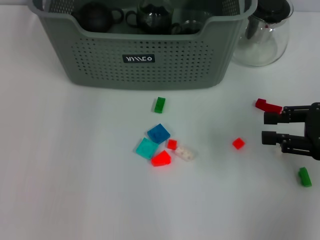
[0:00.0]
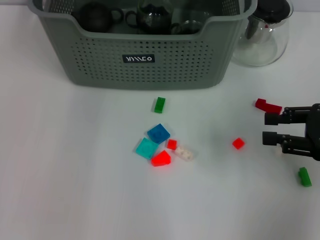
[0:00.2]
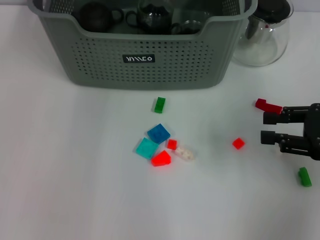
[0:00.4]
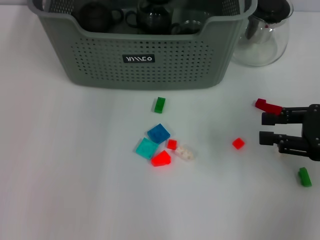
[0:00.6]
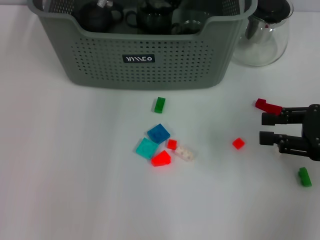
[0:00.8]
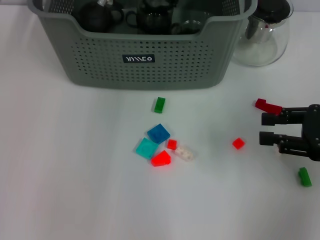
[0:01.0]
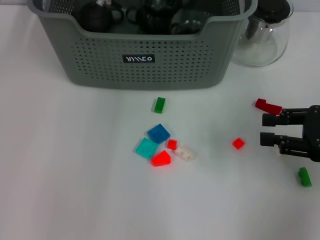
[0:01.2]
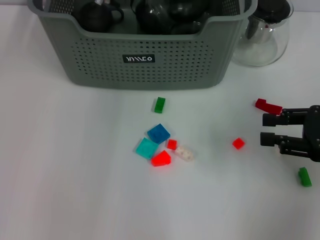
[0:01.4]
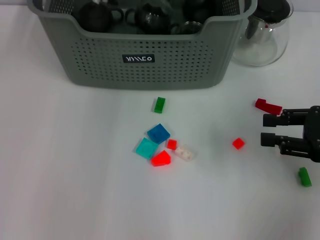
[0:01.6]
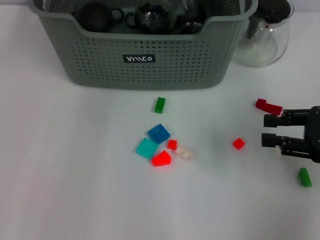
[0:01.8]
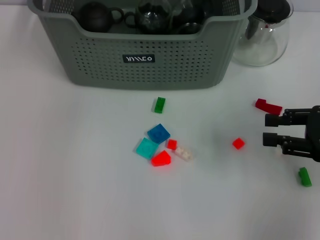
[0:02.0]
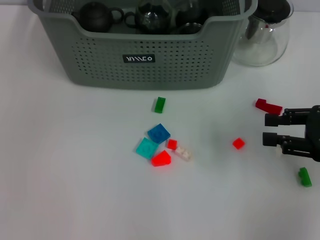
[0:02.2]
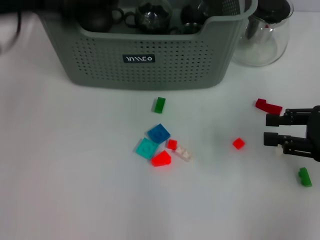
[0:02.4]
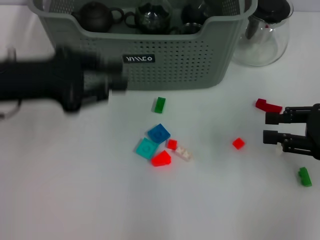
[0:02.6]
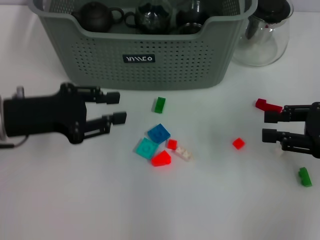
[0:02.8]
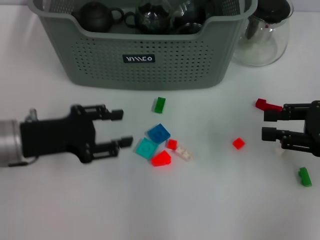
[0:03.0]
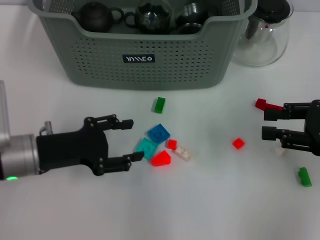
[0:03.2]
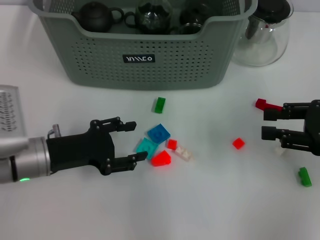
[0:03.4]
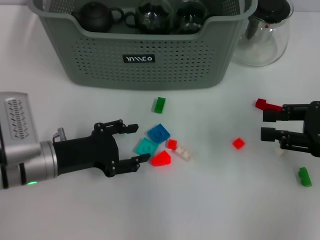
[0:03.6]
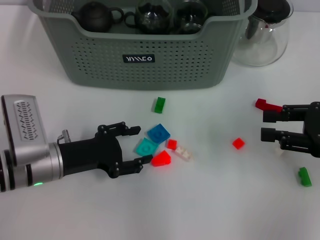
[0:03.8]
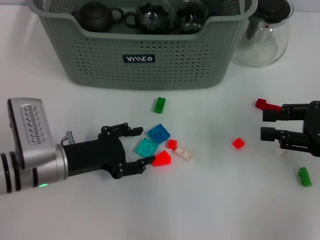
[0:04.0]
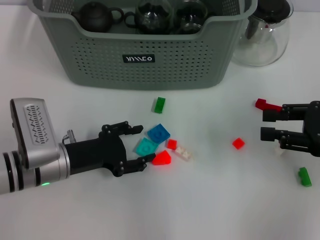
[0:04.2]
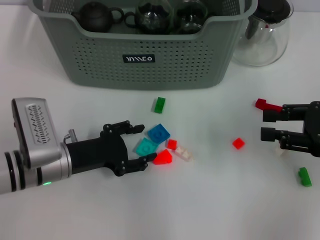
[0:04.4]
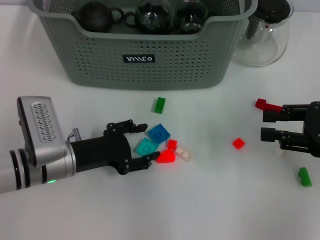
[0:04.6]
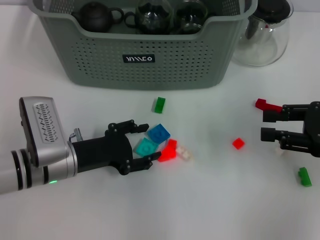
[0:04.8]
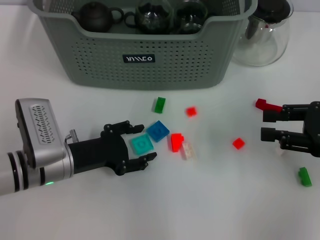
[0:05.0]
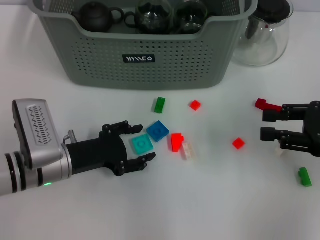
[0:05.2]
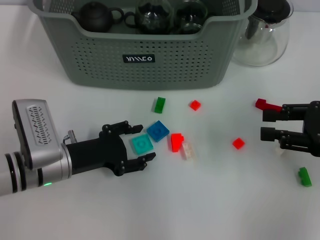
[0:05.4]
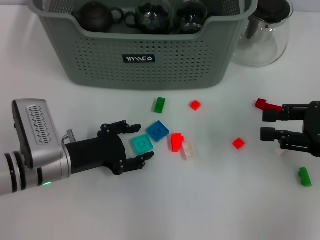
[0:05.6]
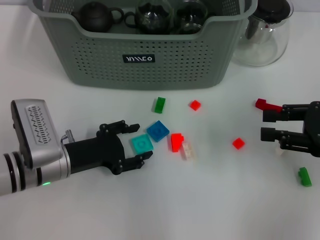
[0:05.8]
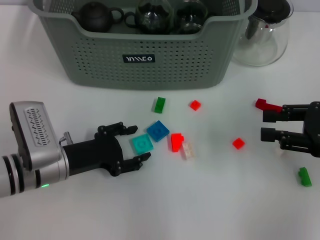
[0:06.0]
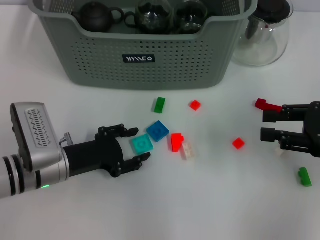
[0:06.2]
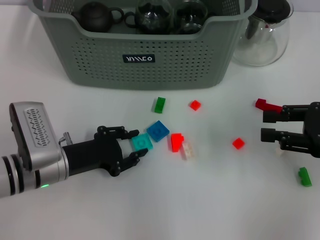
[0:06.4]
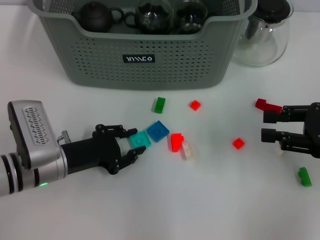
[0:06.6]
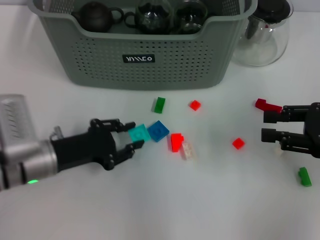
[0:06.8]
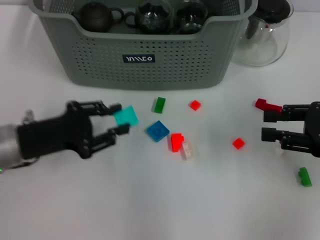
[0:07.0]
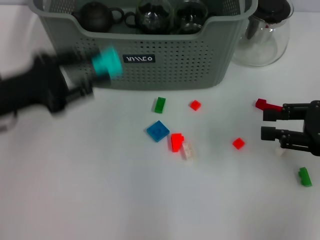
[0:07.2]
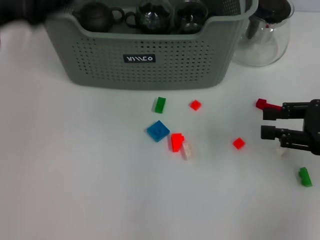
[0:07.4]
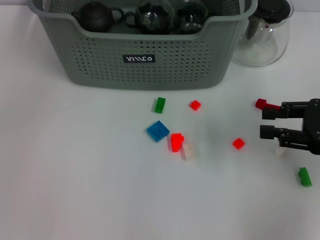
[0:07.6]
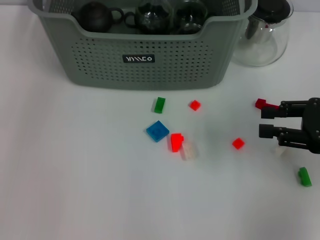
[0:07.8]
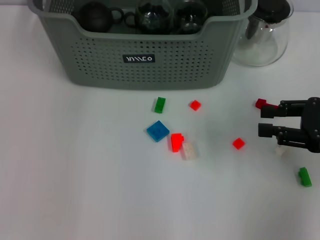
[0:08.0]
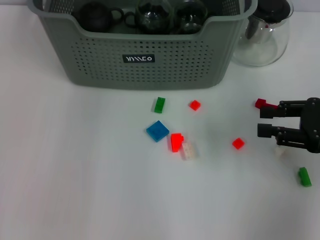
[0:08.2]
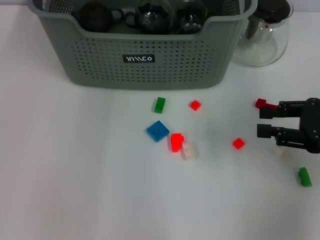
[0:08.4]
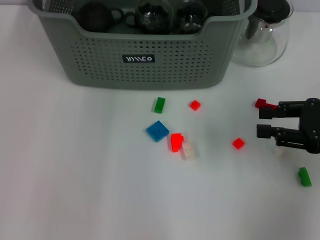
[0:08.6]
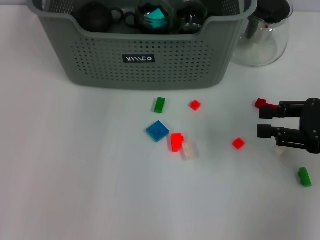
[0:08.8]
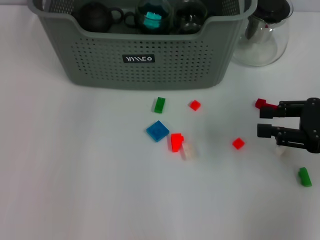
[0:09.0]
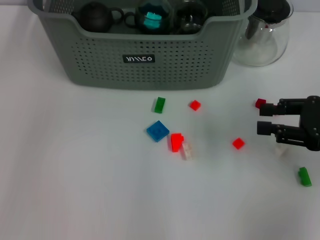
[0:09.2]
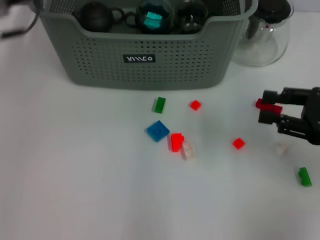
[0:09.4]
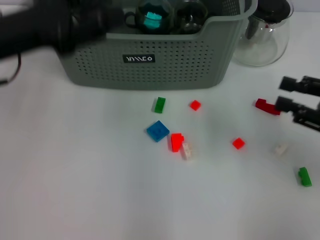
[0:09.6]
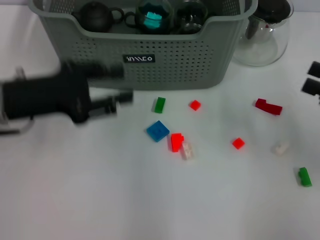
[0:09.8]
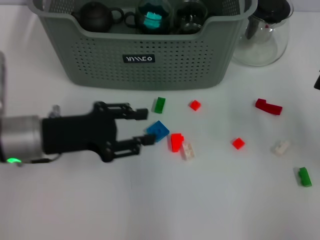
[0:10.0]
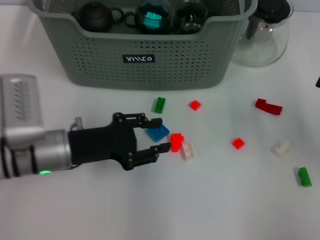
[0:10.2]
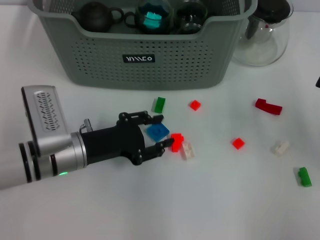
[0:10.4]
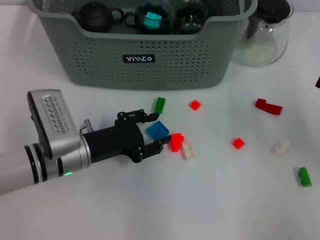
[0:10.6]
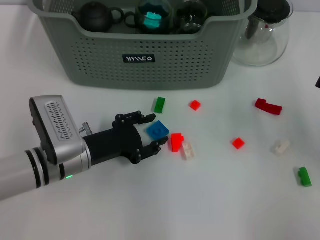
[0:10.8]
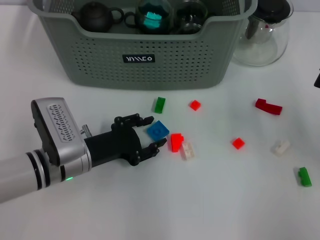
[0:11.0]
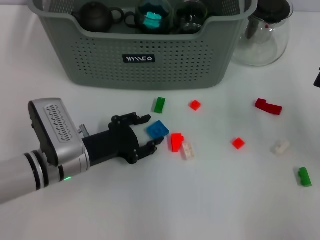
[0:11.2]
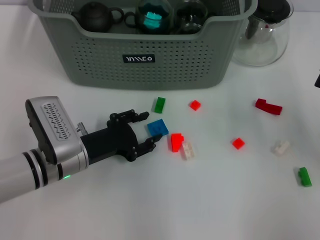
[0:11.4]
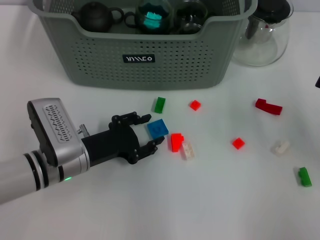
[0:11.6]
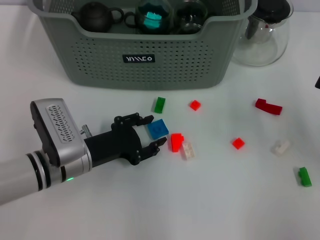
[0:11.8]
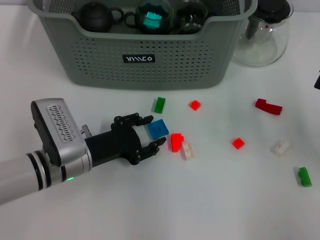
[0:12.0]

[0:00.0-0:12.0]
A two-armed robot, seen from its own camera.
Task of the whole recording: pick up the teacup on the table and place it into the storage bin, pick up the block on the table and place it into the storage bin.
Step, 0:01.6 to 0:06.4: Grasp the light blue block with left gripper.
Step, 0:06.6 to 0:08.8: Place the light blue block in the storage box with left gripper.
0:01.6 to 0:03.0: The left gripper heads backward, to the left and downward, covering approximately 30 cm.
0:03.0 to 0:04.4: The left gripper is displaced downward by about 5 cm, and opens up.
0:04.4 to 0:06.0: Both grippers stay about where they are.
0:06.0 to 0:07.6: The left gripper heads upward and forward, covering some 30 cm.
0:09.0 to 0:10.4: The left gripper goes approximately 30 cm downward and backward. Meanwhile the right gripper is displaced to the right by roughly 5 cm.
0:10.4 to 0:12.0: There are only small adjustments of the grippers.

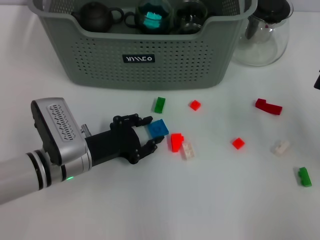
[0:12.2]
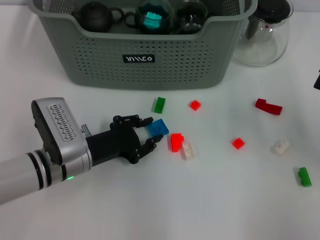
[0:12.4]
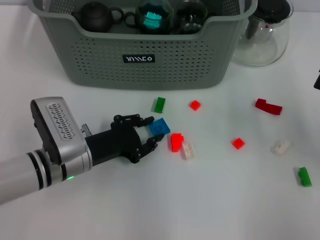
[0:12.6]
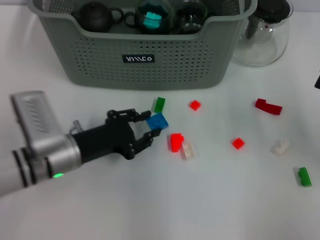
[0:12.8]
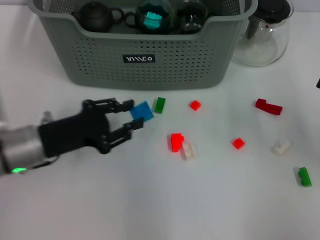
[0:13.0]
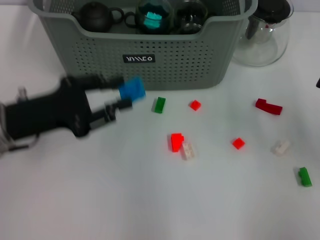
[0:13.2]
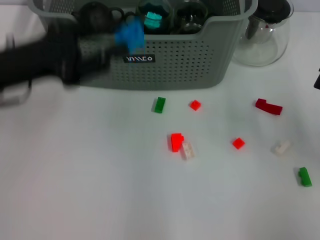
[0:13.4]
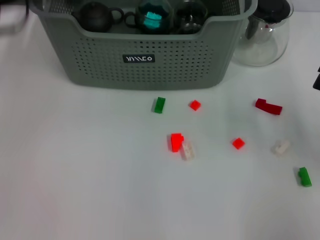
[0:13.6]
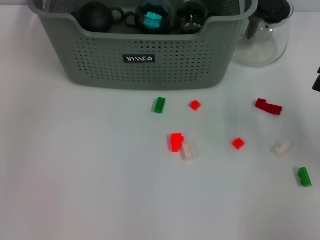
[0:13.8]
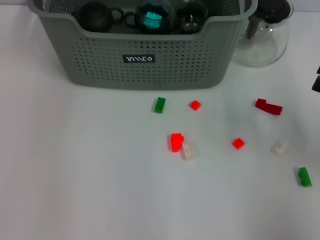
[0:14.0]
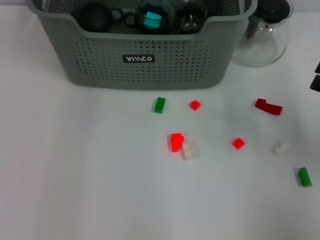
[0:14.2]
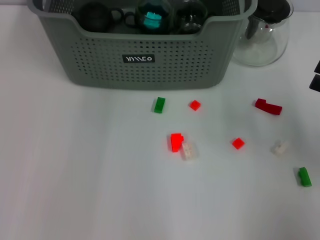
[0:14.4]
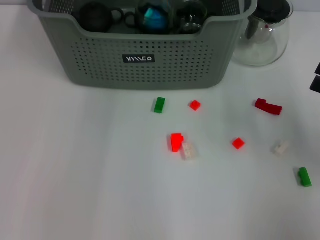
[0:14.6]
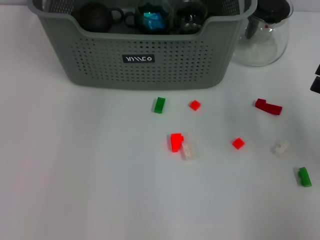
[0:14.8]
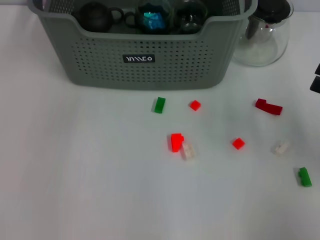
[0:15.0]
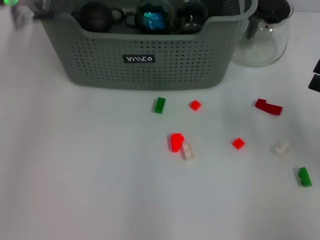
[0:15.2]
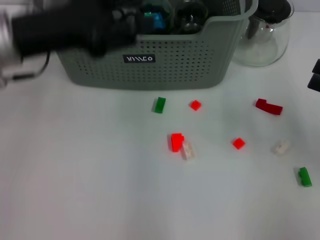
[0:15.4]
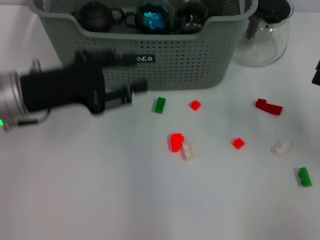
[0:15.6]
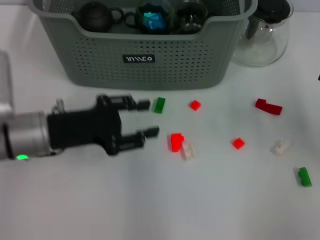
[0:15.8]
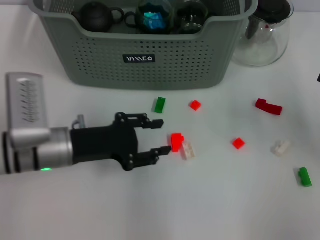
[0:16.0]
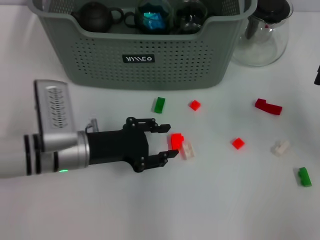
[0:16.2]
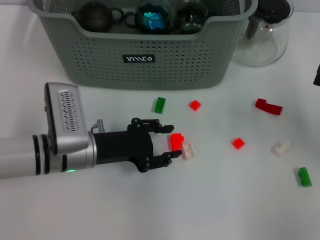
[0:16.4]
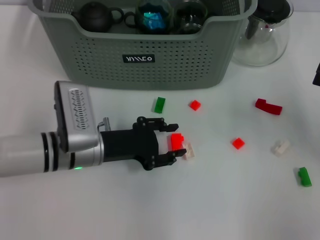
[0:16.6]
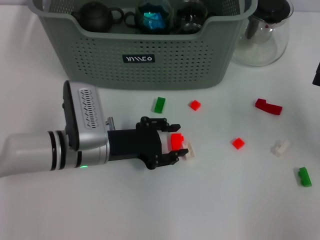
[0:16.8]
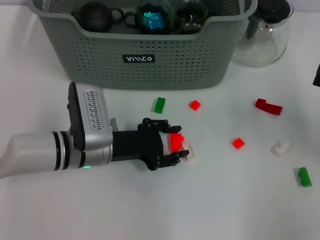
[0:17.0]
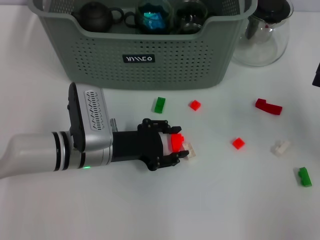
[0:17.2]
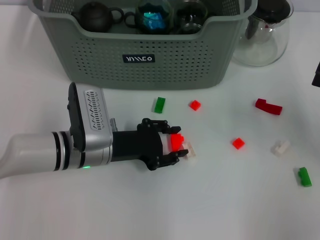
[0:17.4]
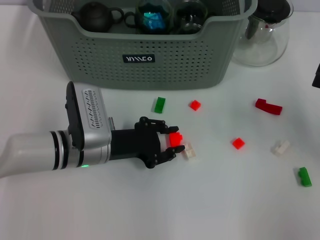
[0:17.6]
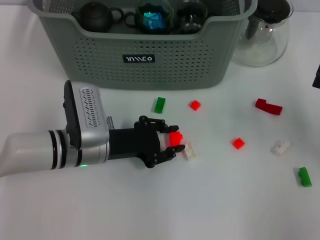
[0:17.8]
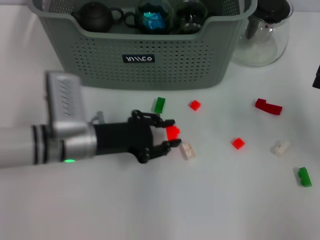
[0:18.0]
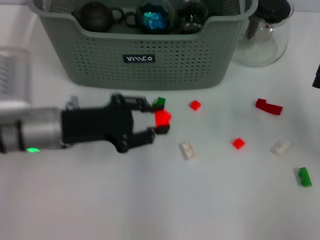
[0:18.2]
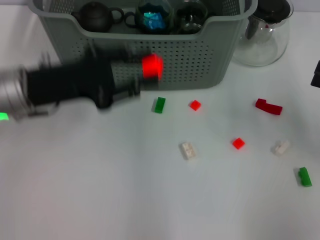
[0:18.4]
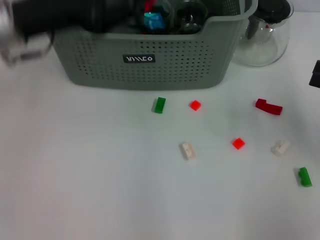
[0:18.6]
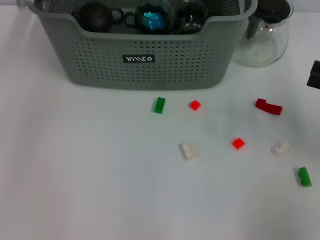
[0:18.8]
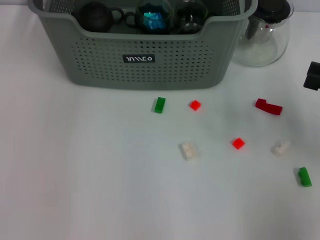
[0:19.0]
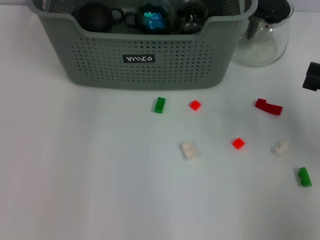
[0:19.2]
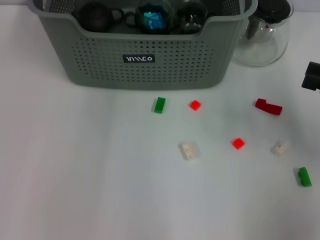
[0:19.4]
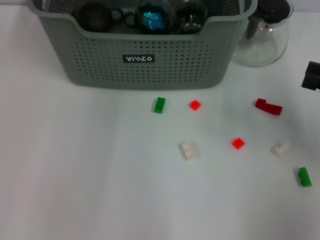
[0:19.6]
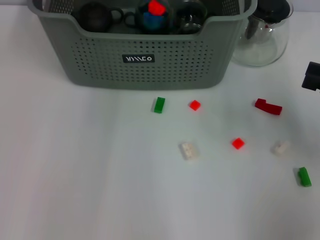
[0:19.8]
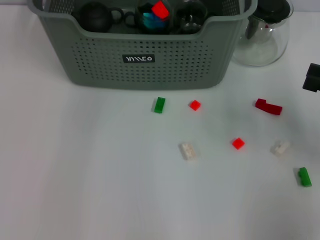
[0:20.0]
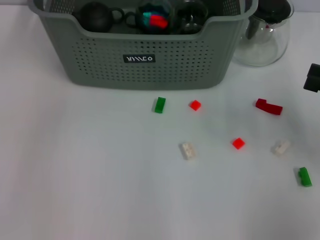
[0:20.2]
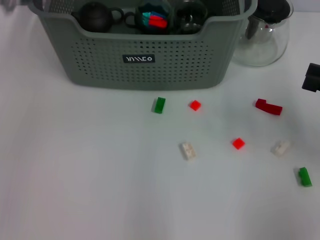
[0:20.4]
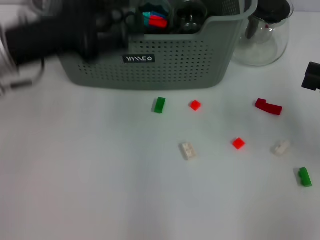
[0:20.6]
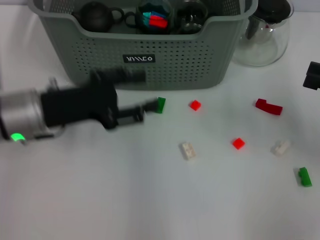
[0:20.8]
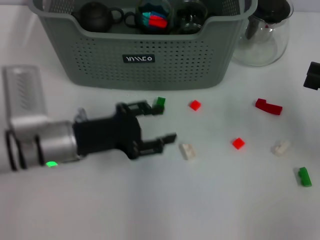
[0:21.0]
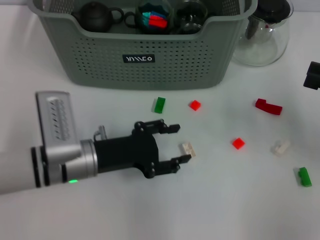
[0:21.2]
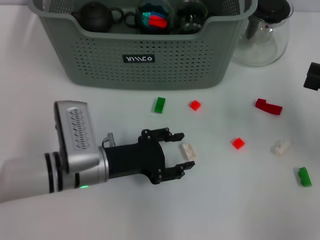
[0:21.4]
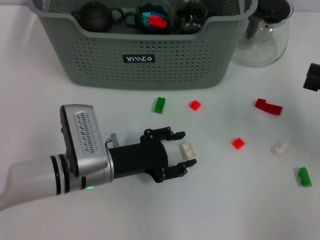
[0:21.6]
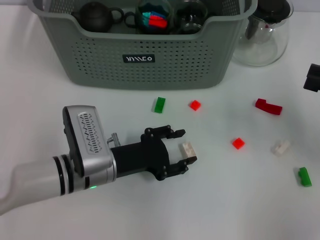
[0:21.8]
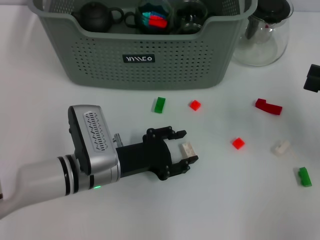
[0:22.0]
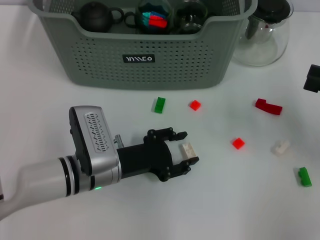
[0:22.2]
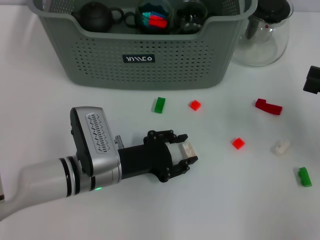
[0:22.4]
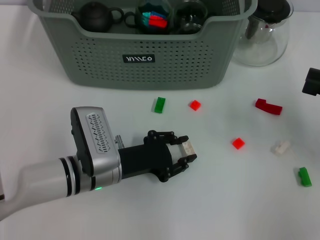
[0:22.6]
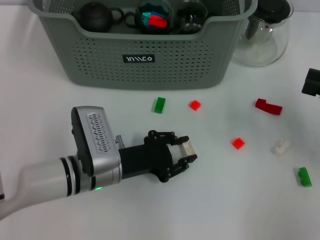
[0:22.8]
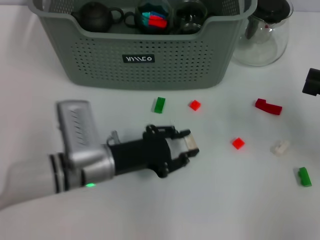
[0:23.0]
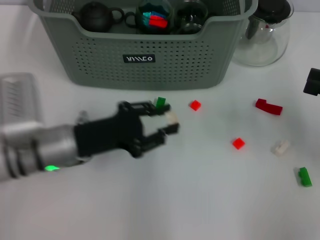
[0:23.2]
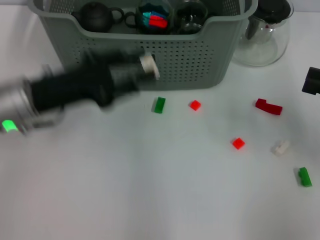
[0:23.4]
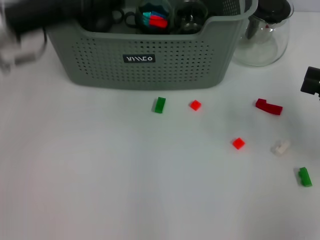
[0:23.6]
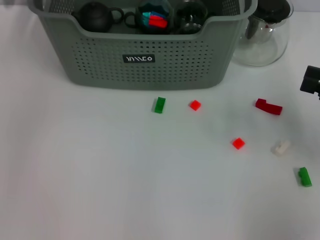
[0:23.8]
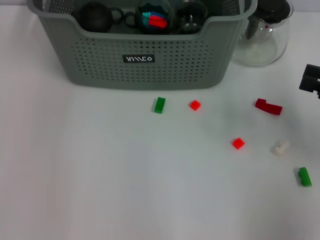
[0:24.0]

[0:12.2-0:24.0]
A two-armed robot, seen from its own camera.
Task of the whole recording: pick up the teacup on the table and place it into the storage bin, pick up the block on the table and place it into the storage bin.
Step, 0:12.6 to 0:14.6: Place the dark blue block in the storage box with left gripper.
Step, 0:14.8 to 0:17.4: Grasp the orange block with left gripper.
Step, 0:17.8 to 0:19.8: Place the orange block in the storage box with left gripper.
Step, 0:20.0 to 0:22.6: Grasp the white block with left gripper.
0:12.2 to 0:13.6: The left gripper heads upward, covering some 20 cm.
0:13.6 to 0:15.2: The left gripper goes some 5 cm to the right.
0:15.2 to 0:16.6: The left gripper travels downward by about 20 cm.
0:16.6 to 0:18.2: The left gripper heads upward, covering roughly 5 cm.
0:18.2 to 0:19.6: The left gripper shifts roughly 25 cm forward, upward and to the right.
0:19.6 to 0:21.0: The left gripper is displaced backward, downward and to the left by some 30 cm.
0:21.0 to 0:22.6: The left gripper shifts approximately 10 cm to the right and downward.
0:22.6 to 0:24.0: The left gripper goes approximately 30 cm upward and forward.
